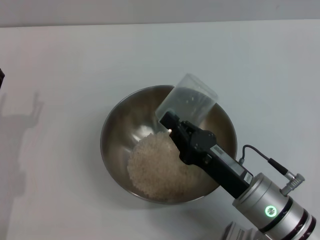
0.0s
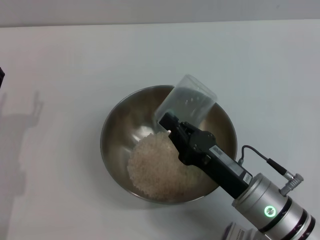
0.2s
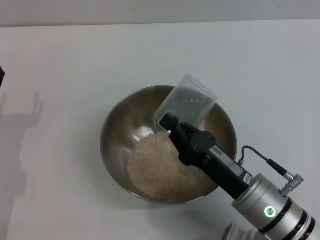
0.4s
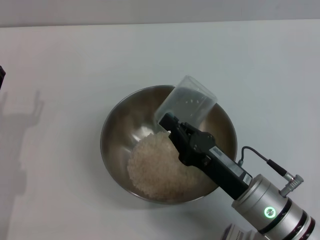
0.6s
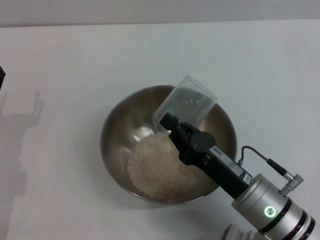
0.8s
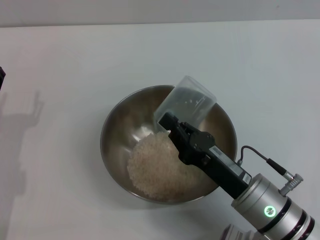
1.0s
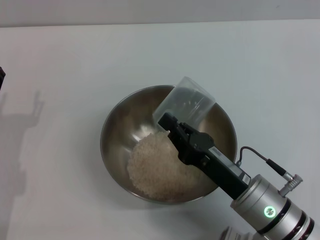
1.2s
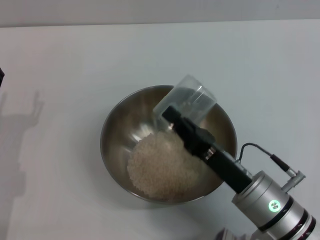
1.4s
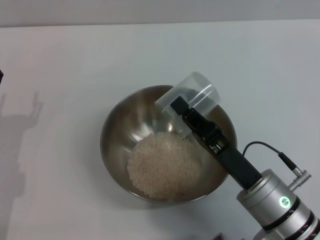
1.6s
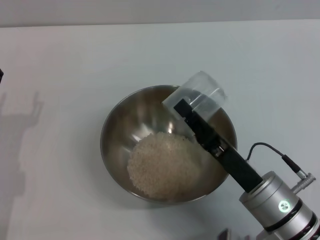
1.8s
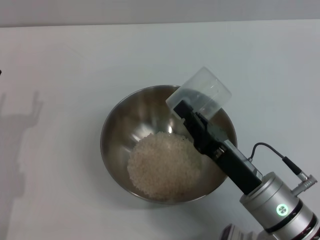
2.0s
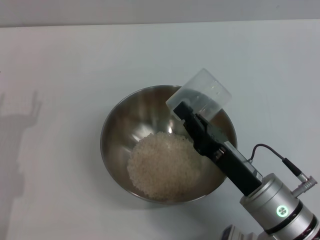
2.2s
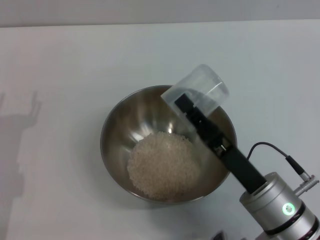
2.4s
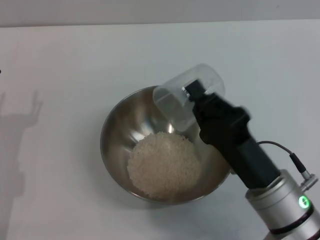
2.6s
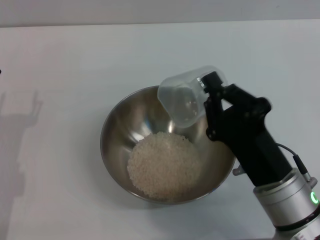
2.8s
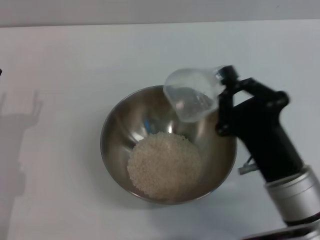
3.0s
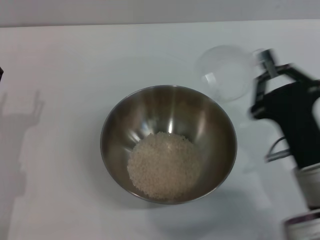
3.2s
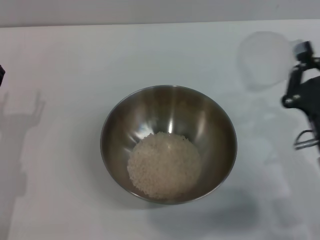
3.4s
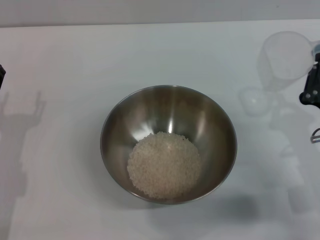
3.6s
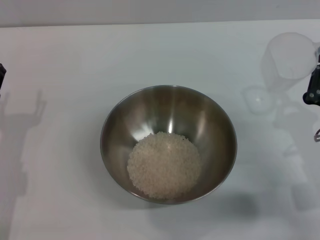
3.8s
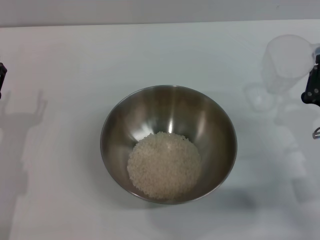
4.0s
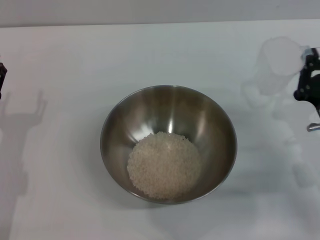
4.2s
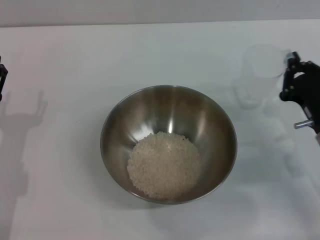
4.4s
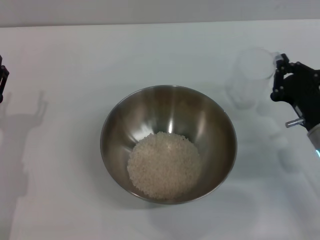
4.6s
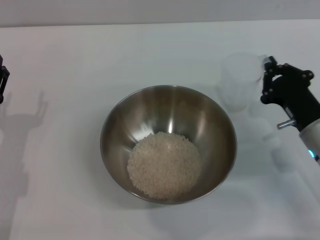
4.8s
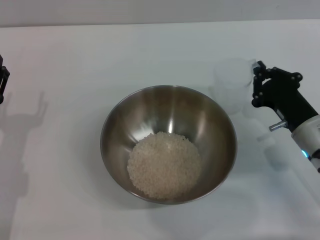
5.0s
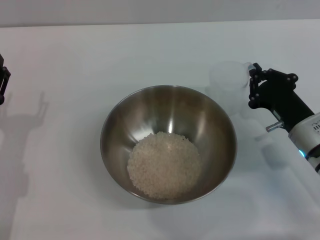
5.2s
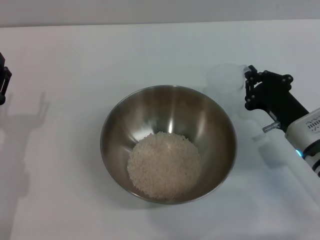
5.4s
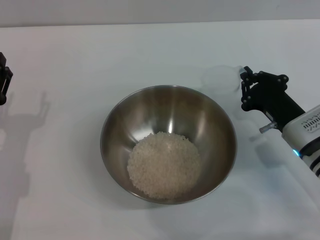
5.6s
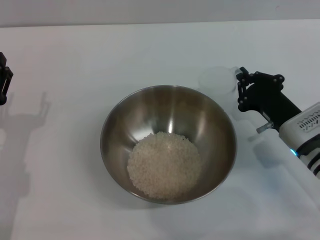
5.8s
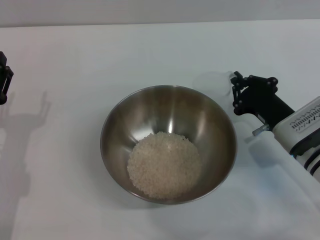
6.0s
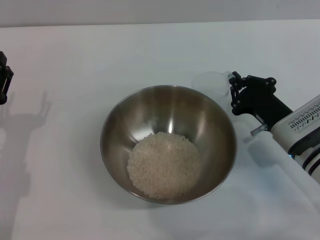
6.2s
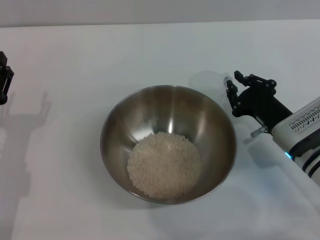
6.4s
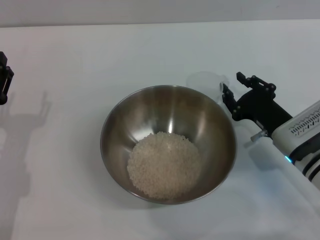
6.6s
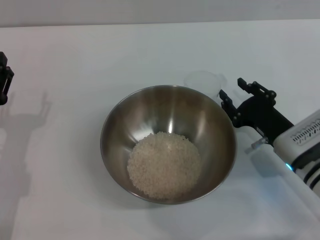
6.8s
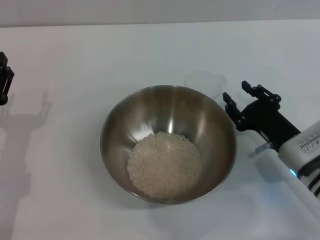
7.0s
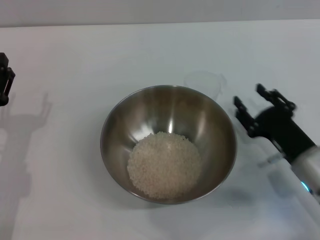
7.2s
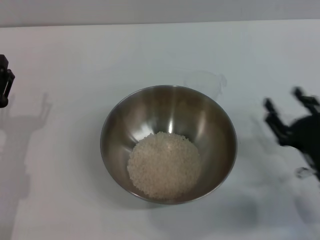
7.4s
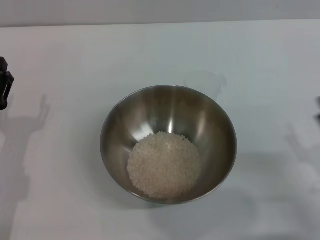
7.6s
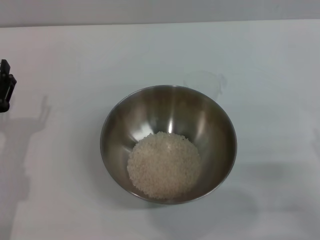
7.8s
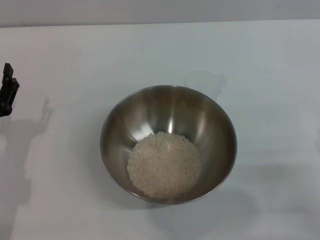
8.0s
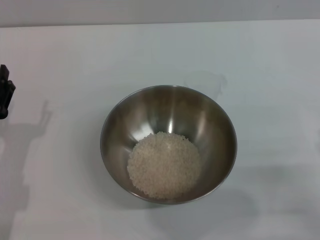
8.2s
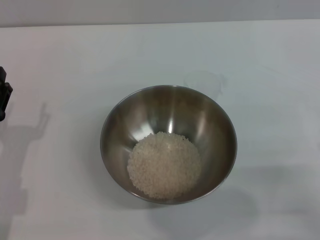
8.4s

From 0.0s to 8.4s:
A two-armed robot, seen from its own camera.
Task of the whole recording: Place the bowl in the middle of the table with one hand and pour the rice from the grain cup into it with the other hand.
Step, from 0.0s to 3.2s: Pour the rice from the cup into the bowl with the right gripper.
Step, from 3.4s to 7.2s: Place the cup on the table with the right gripper.
From 0.0s to 1.4s: There are only small adjustments of the grippers.
From 2.8s to 4.2s: The right gripper shifts some 15 cm to the right and forward.
From 4.2s to 5.6s: The right gripper ends up some 5 cm from where it was.
From 5.6s to 7.0s: The right gripper opens up.
From 7.0s to 8.4s: The right gripper is displaced backward and to the right by approximately 15 cm, and opens up.

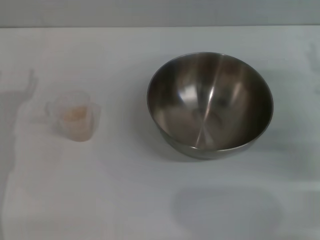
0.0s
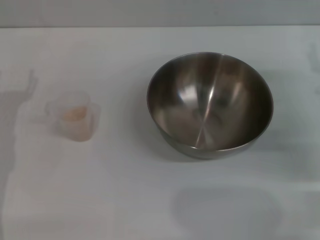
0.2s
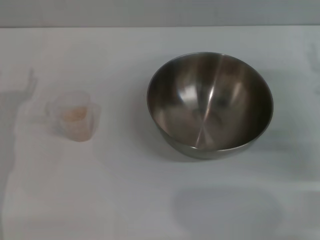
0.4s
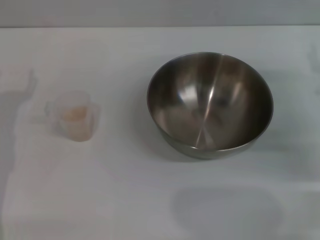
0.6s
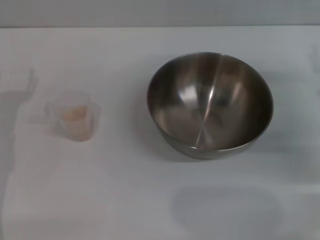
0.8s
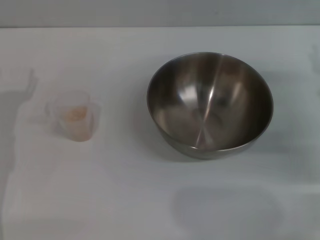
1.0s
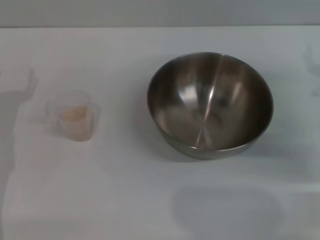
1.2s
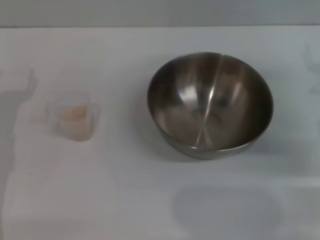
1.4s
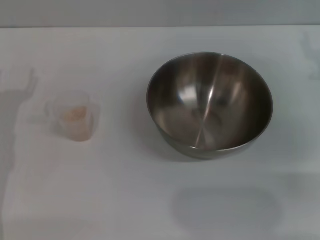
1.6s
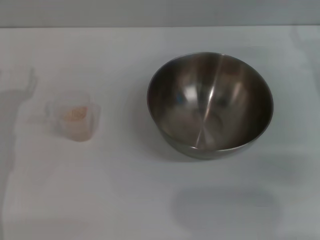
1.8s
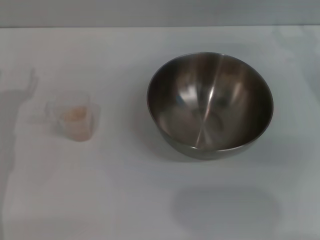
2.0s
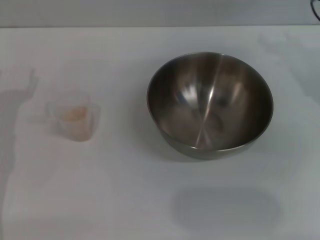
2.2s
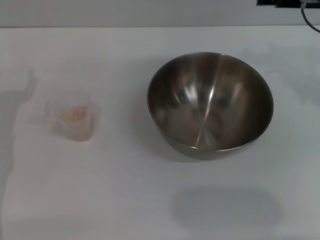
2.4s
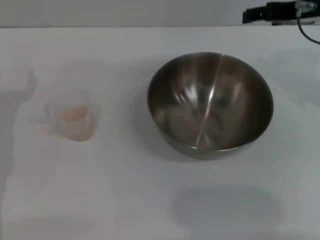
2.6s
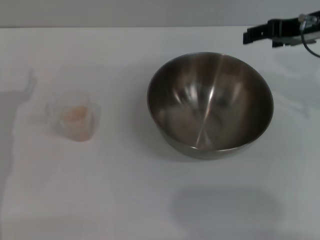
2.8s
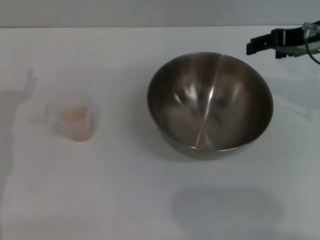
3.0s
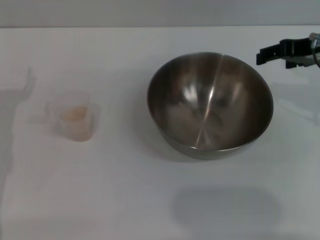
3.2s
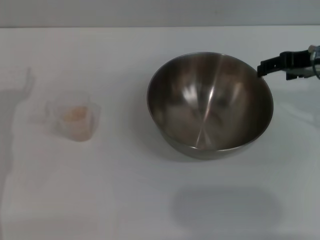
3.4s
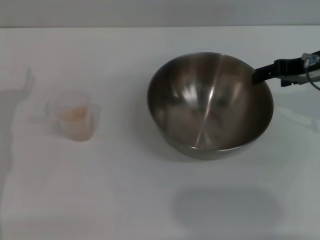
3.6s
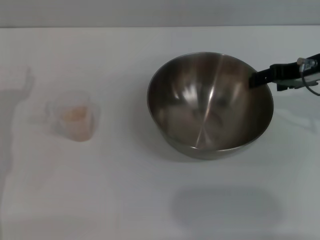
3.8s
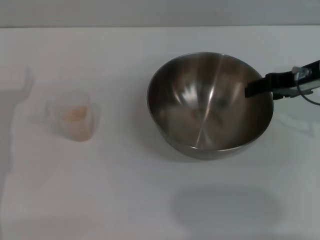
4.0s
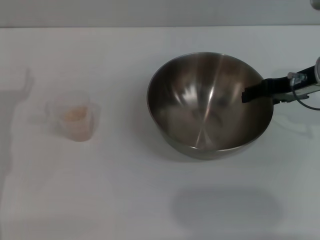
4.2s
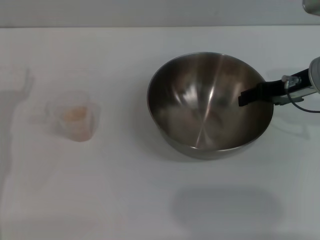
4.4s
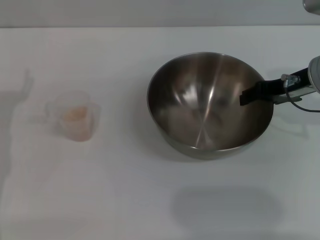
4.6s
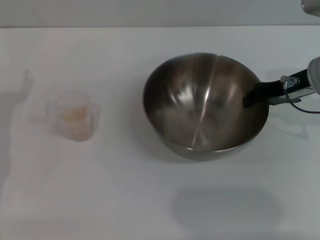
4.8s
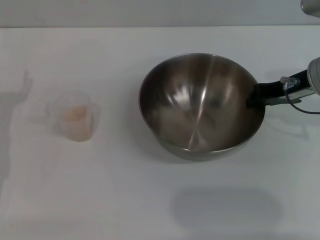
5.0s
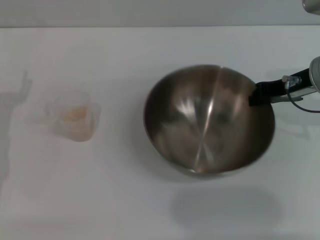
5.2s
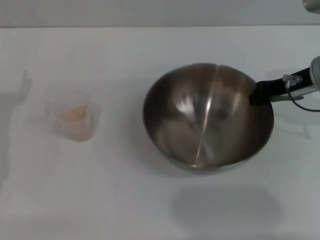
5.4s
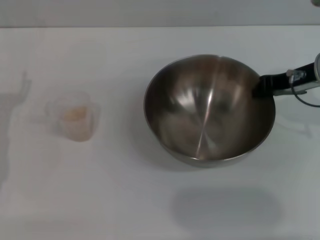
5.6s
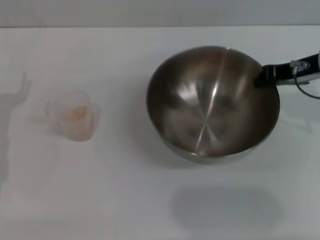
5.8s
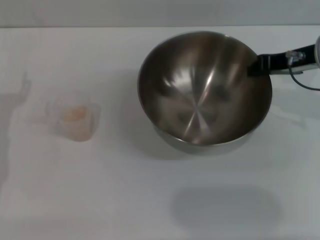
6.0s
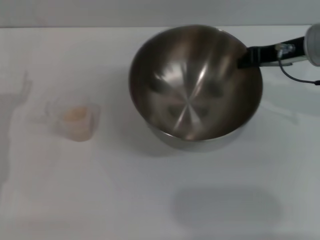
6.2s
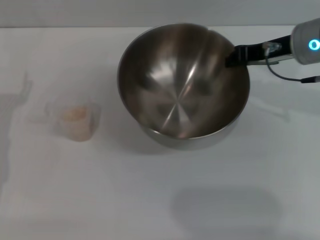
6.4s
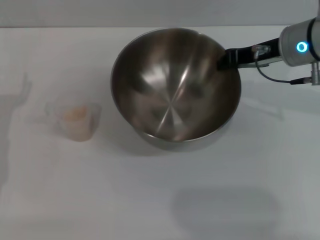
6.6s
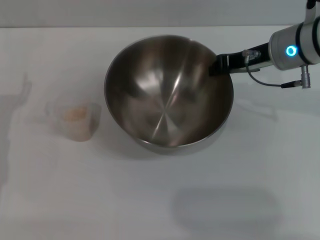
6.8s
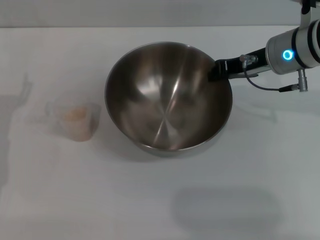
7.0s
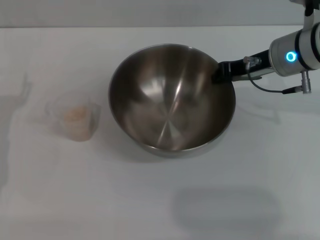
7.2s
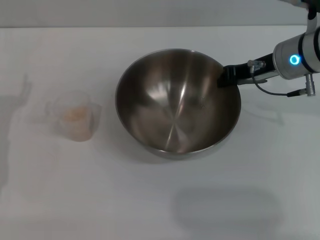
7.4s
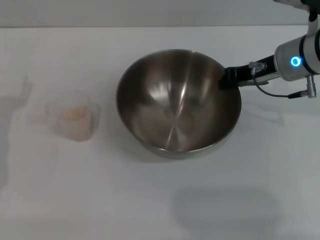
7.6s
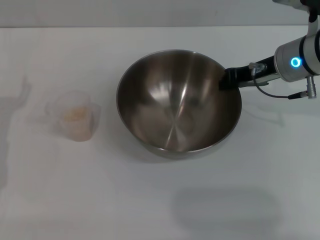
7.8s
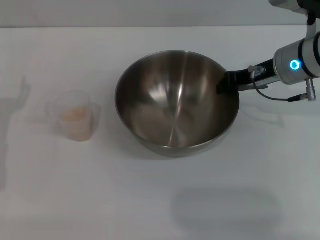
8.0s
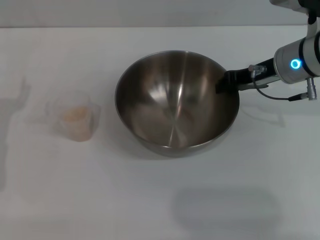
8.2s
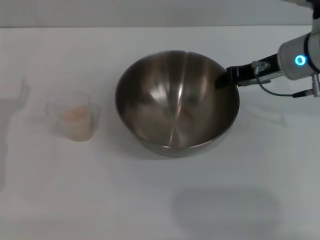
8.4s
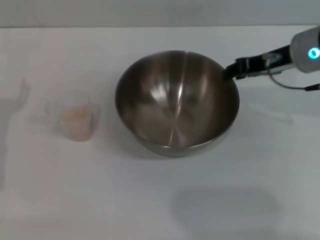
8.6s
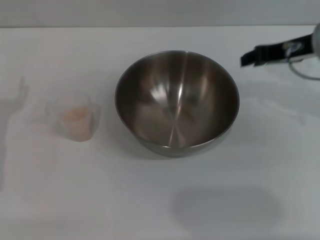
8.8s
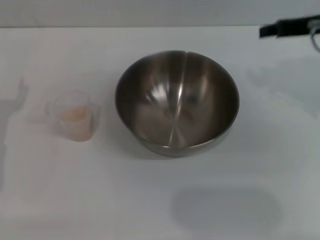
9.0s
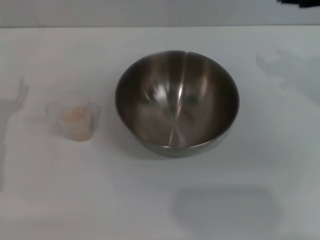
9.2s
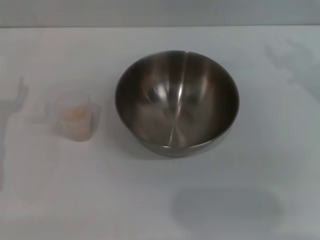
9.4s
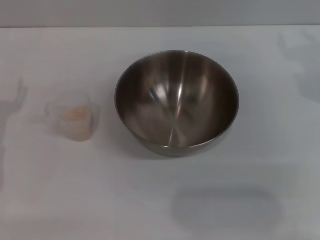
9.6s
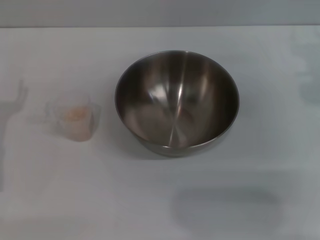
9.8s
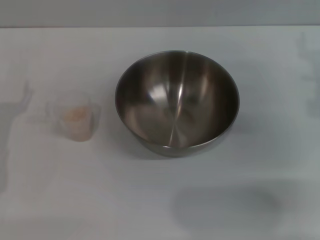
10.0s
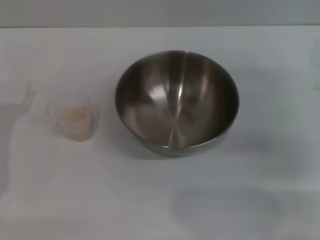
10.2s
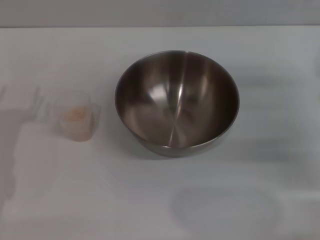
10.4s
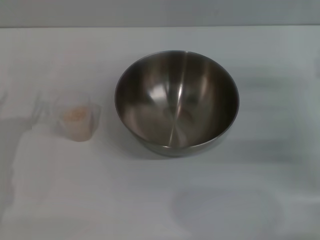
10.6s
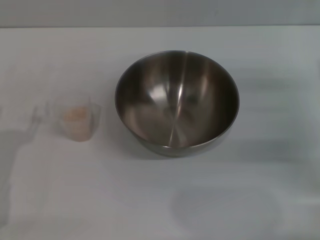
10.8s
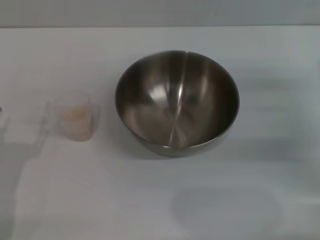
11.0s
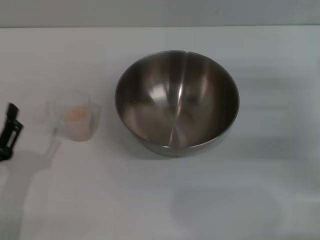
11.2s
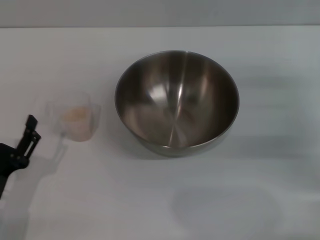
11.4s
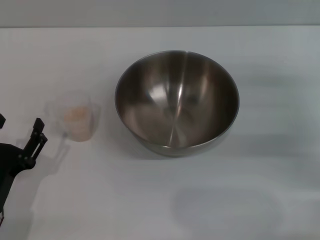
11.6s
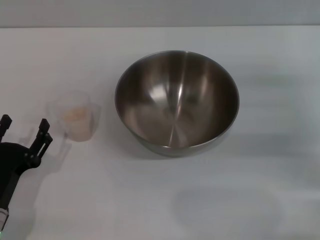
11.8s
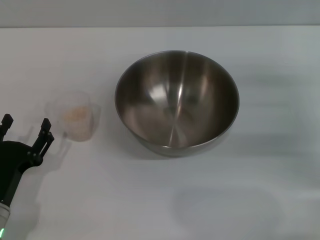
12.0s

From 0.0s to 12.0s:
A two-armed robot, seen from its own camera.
Task of the whole recording: Place the bowl in the middle of the table with one hand and pour the rice from the grain cup into it with the other hand.
Step, from 0.0s to 5.6s: Pick up the bowl with the right gripper.
Step, from 6.0s to 8.8s: Place the bowl in the center of view with the right gripper.
From 1.6s to 3.0s: The right gripper shifts roughly 10 cm upward and to the left.
From 3.0s to 4.4s: The right gripper moves downward, approximately 5 cm.
From 4.4s to 6.0s: The right gripper closes.
From 6.0s to 7.6s: The right gripper ends up some 5 cm from where it was.
From 7.6s to 9.0s: The right gripper heads upward, covering some 10 cm, and opens its fingers.
From 9.0s to 10.4s: The right gripper is displaced downward and to the right by about 15 cm, and opens up.
From 10.4s to 12.0s: The left gripper shifts roughly 10 cm backward and downward.

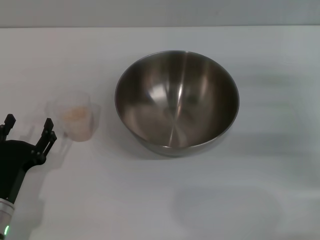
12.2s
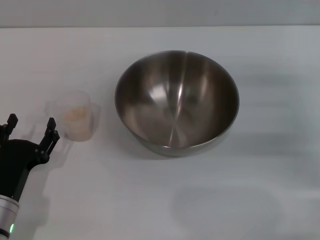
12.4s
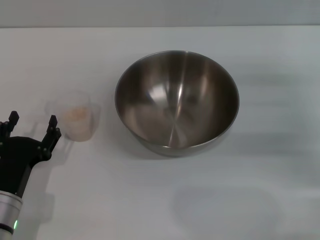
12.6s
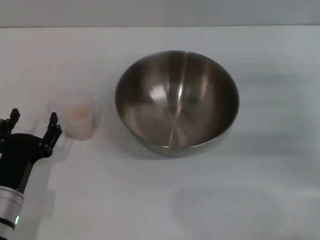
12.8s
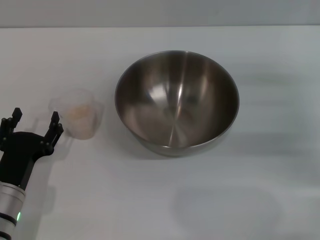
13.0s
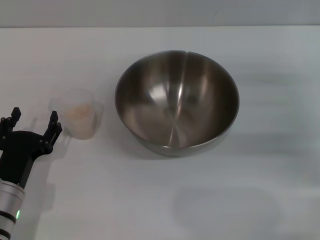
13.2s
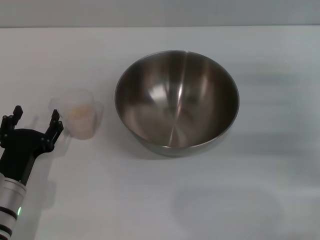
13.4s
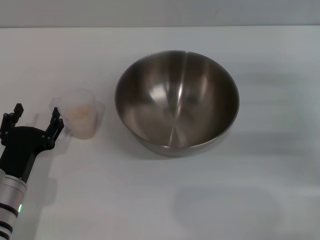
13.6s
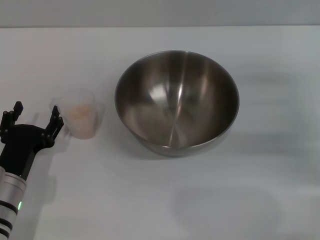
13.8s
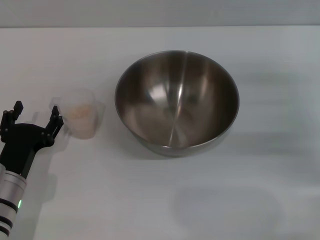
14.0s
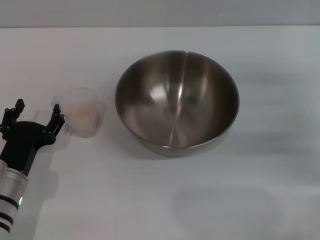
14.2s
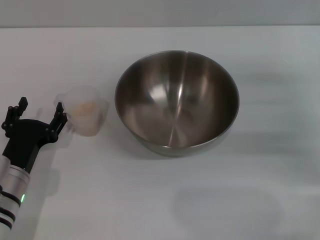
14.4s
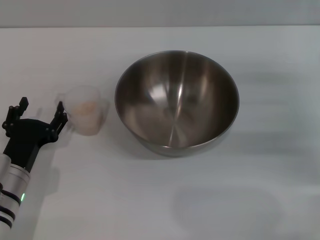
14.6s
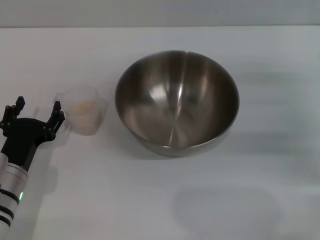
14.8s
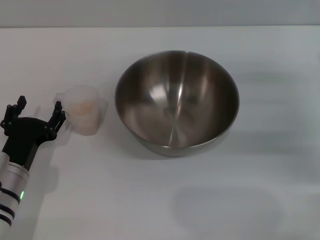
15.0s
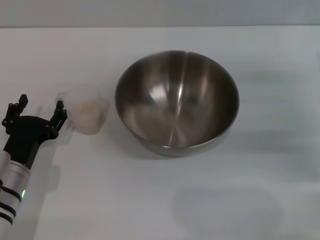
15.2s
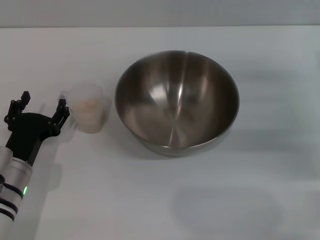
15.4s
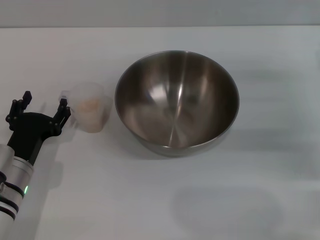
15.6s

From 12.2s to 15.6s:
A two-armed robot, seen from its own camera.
Task of the whole recording: Place the bowl in the middle of the table with one hand and pour the rice from the grain cup into it with the other hand.
From 12.2s to 13.8s: The grippers move only a little.
From 13.8s to 15.6s: The grippers stay close to where they were, moving slightly.
